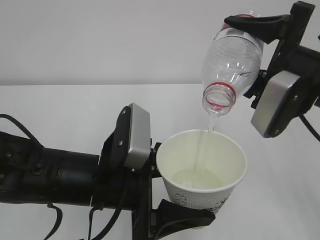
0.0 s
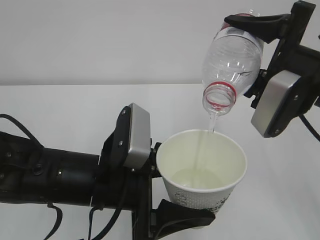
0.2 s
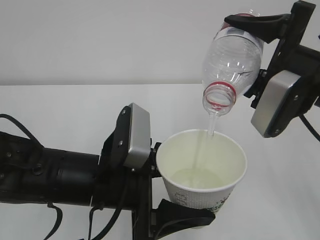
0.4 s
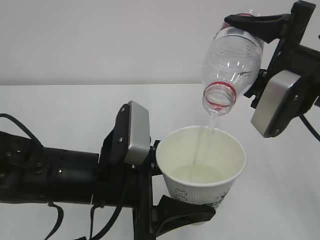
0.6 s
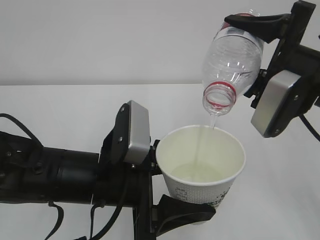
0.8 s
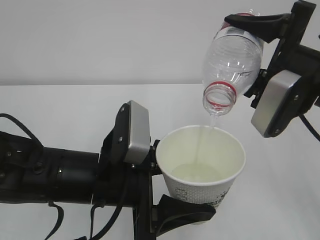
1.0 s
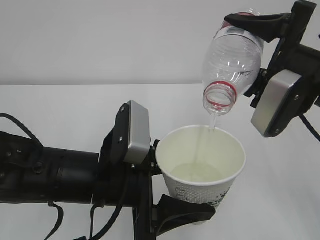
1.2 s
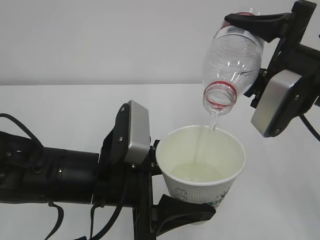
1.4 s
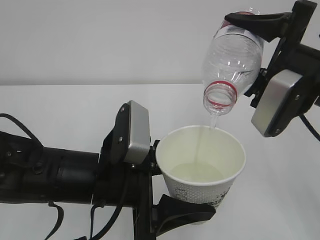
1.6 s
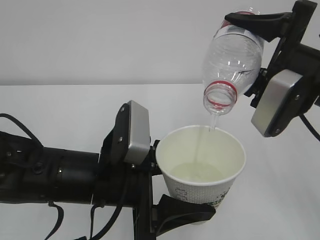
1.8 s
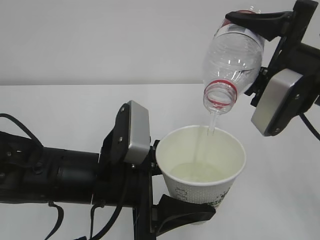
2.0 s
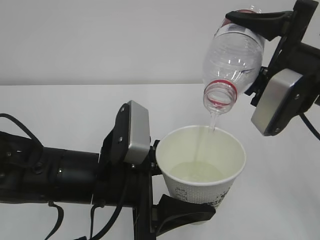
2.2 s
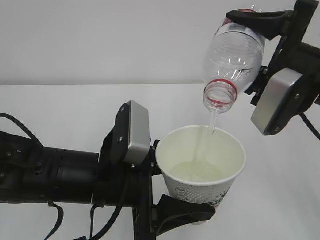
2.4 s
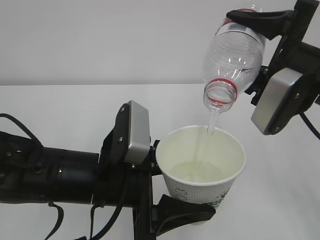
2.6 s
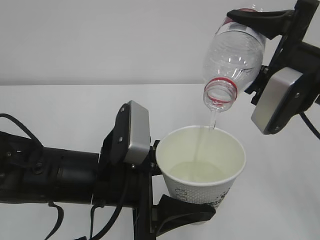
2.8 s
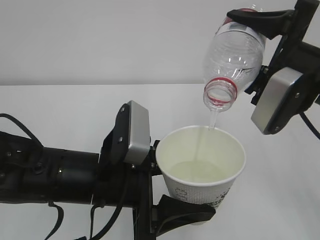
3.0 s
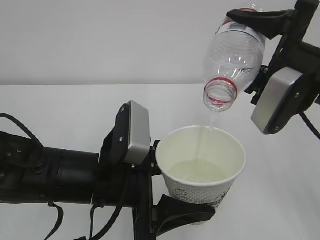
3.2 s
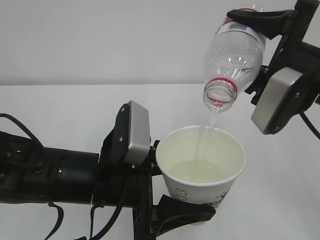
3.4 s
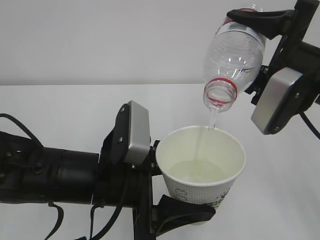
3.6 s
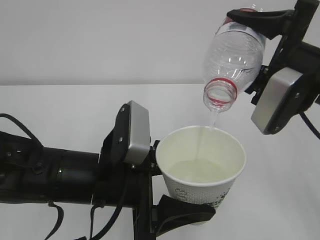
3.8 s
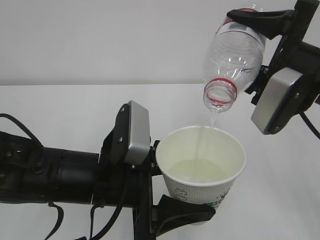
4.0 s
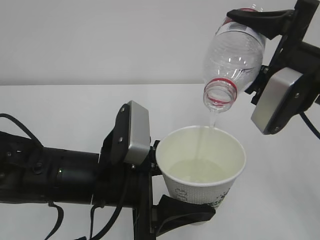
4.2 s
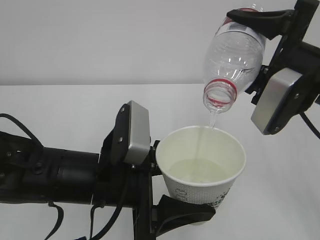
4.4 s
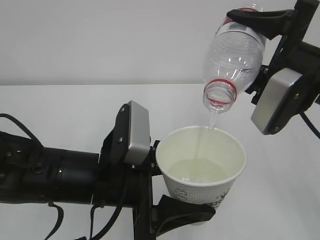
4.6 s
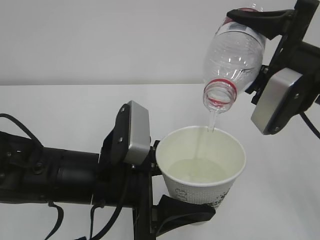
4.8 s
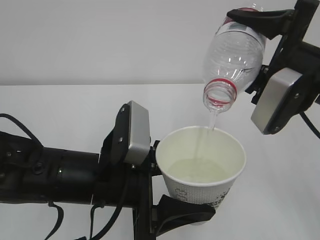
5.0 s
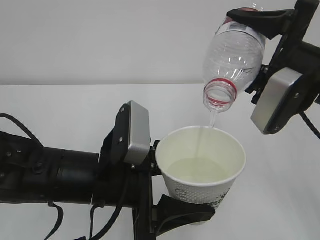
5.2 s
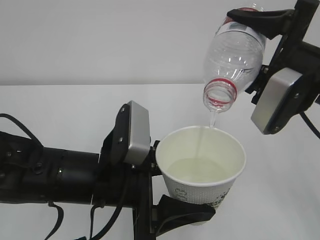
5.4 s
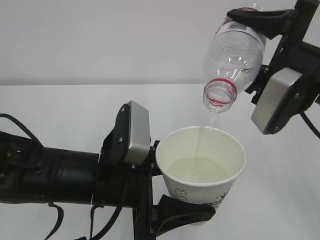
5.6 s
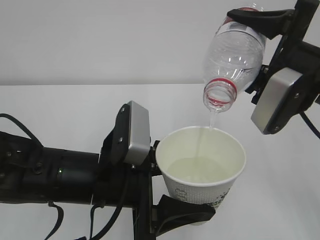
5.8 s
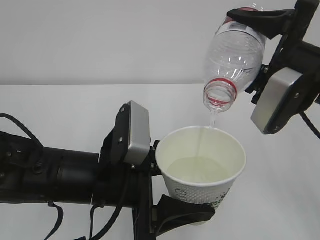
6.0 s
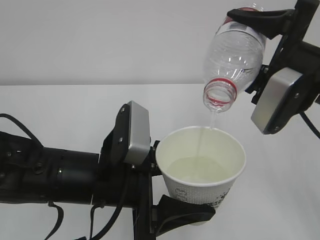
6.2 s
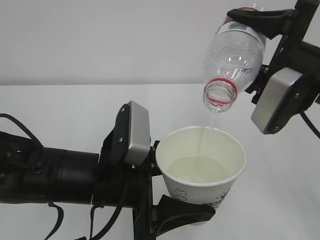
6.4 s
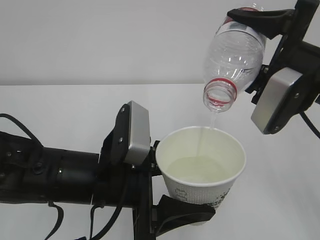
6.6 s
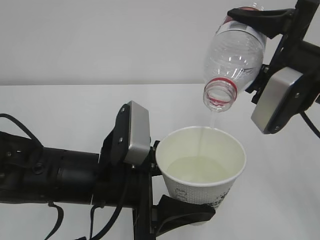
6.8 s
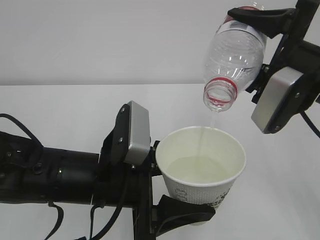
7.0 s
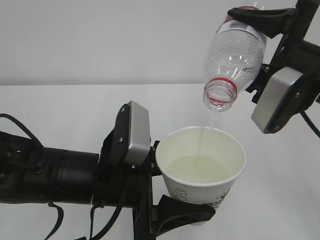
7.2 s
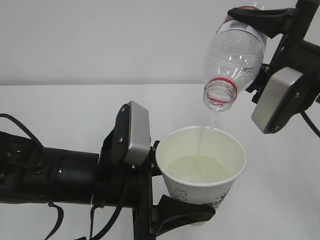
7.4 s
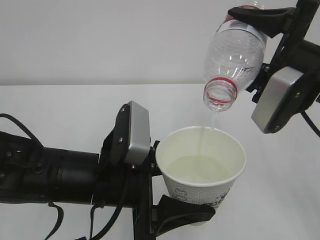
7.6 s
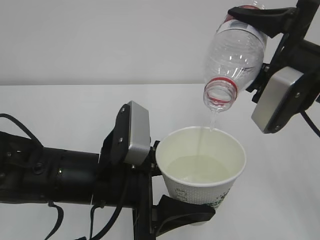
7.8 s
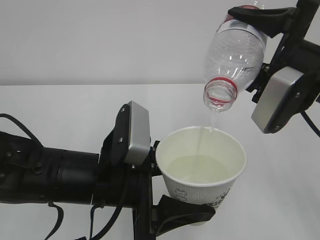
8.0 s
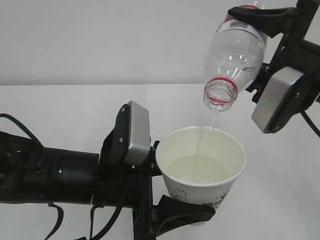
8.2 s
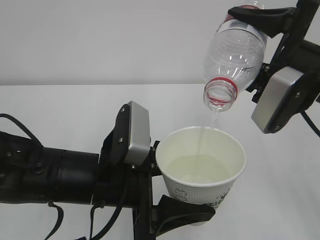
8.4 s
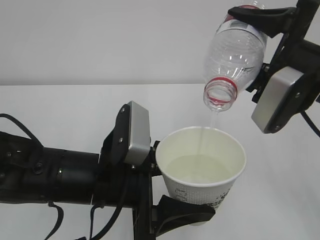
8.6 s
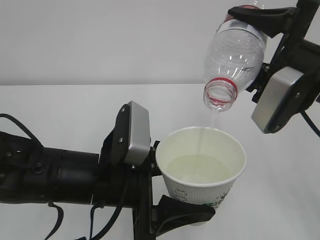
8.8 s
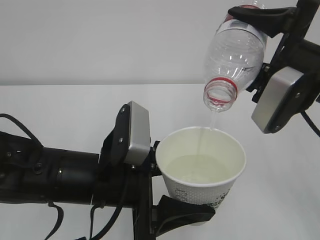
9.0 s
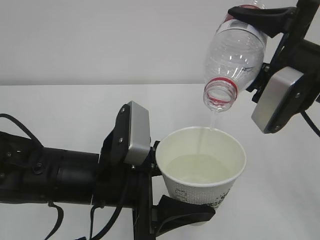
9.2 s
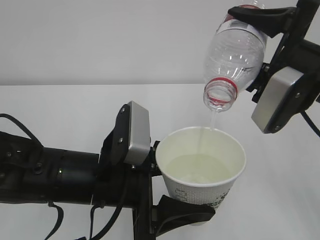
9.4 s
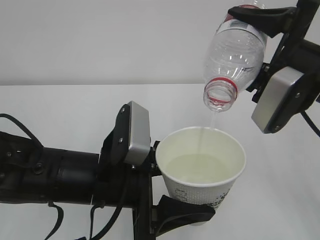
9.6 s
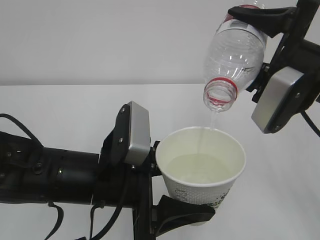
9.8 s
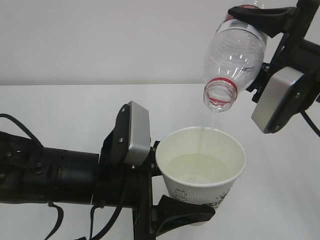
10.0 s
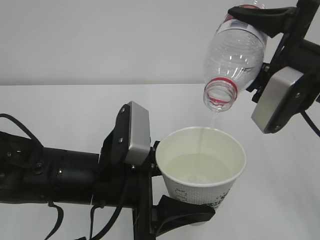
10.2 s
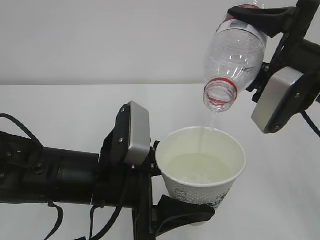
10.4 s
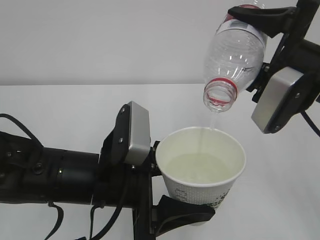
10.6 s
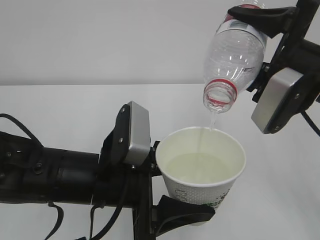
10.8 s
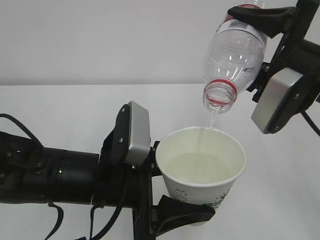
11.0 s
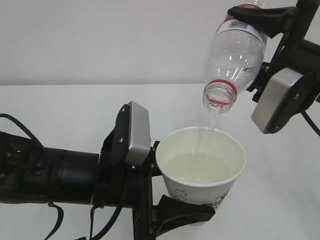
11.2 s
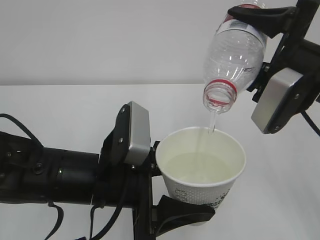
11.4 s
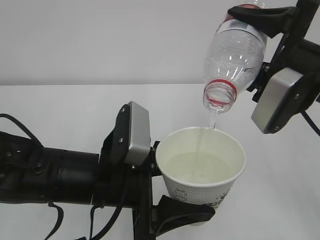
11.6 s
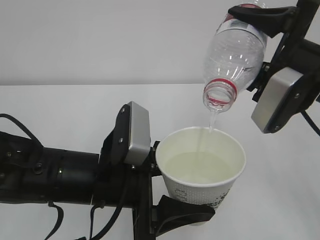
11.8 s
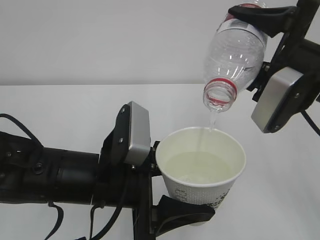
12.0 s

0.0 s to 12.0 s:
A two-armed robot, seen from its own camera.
0.0 to 12.0 s: Neither gripper changes place.

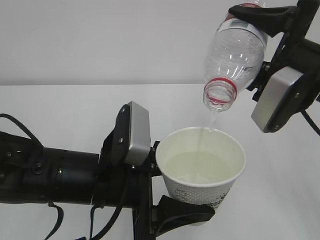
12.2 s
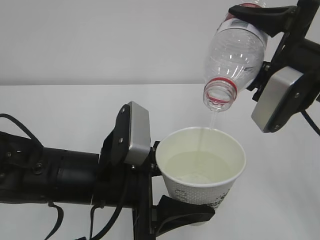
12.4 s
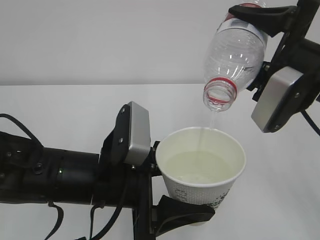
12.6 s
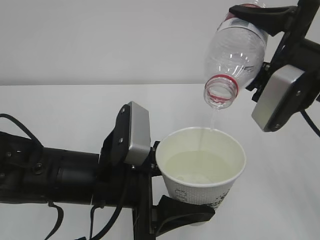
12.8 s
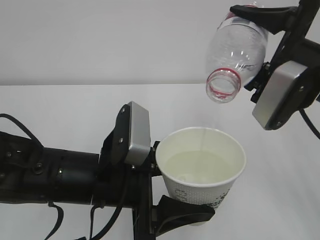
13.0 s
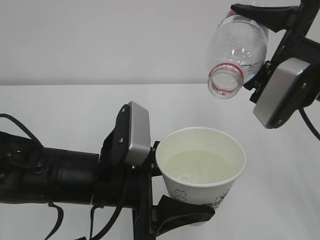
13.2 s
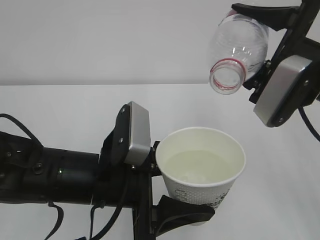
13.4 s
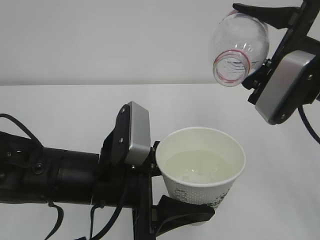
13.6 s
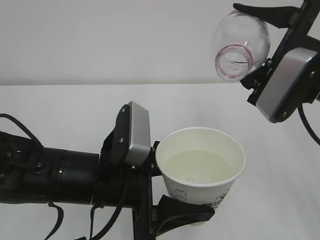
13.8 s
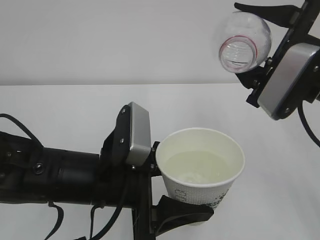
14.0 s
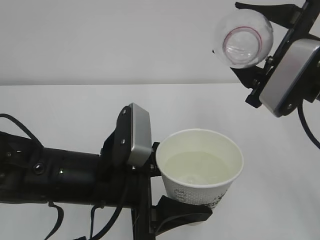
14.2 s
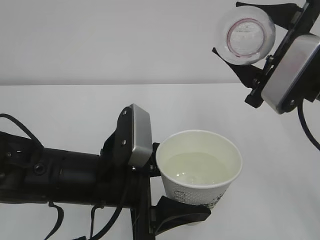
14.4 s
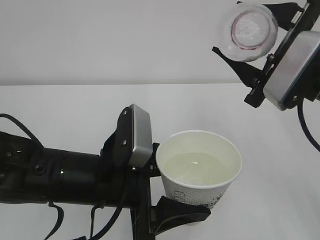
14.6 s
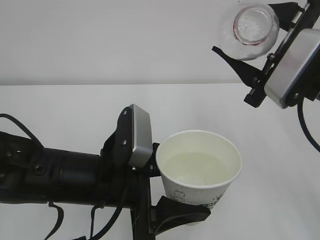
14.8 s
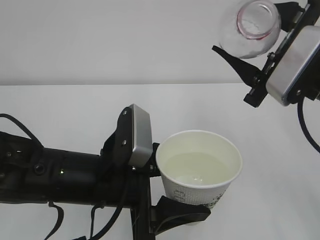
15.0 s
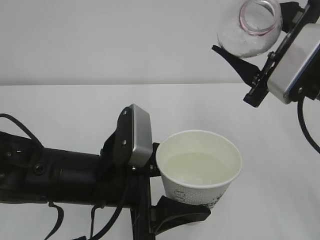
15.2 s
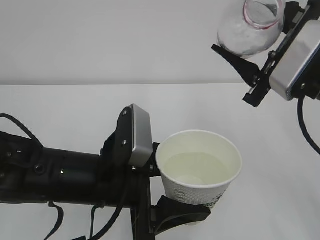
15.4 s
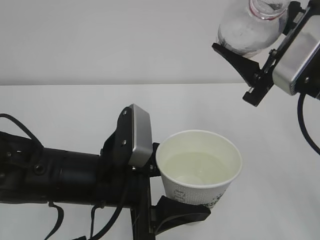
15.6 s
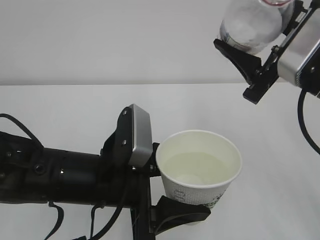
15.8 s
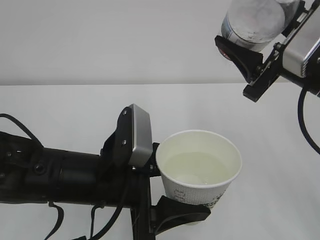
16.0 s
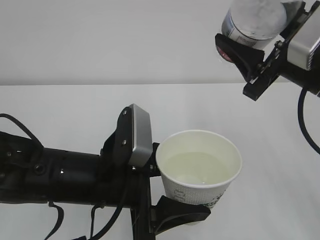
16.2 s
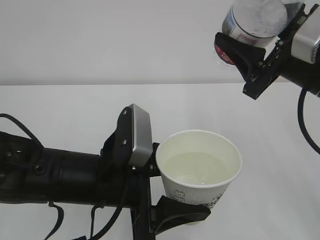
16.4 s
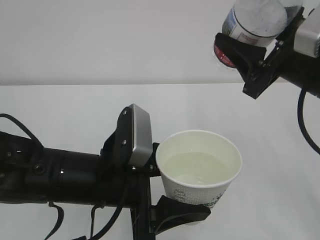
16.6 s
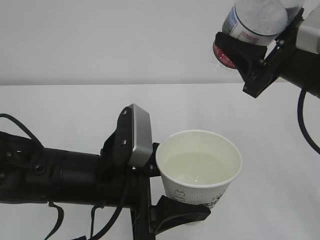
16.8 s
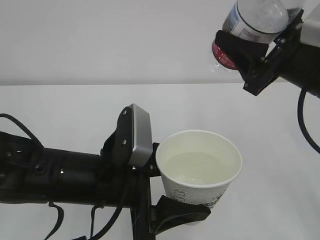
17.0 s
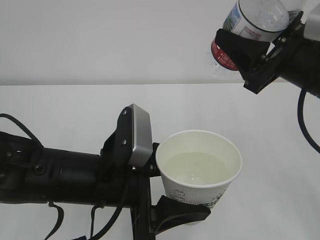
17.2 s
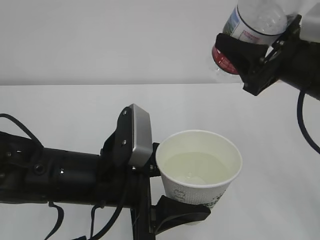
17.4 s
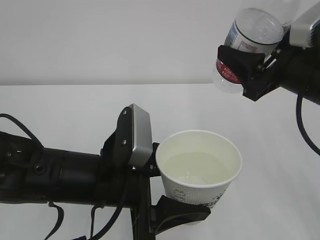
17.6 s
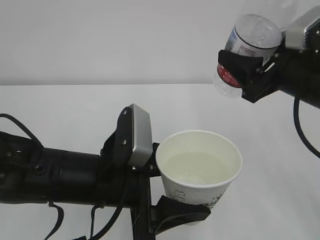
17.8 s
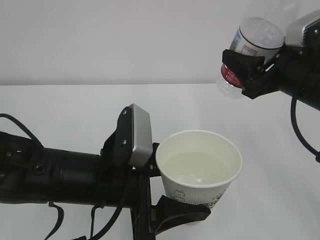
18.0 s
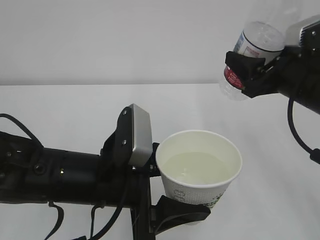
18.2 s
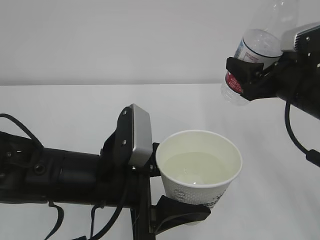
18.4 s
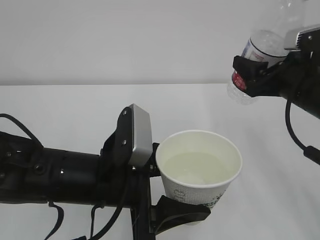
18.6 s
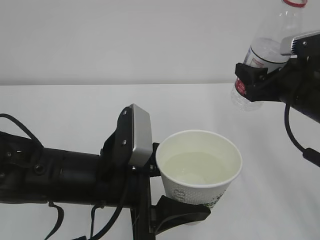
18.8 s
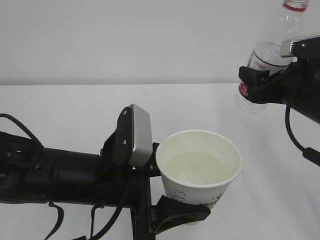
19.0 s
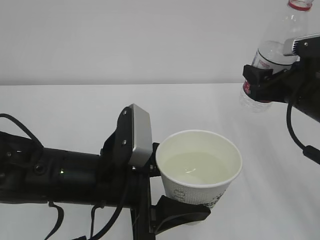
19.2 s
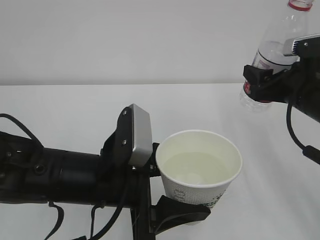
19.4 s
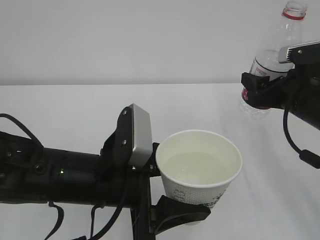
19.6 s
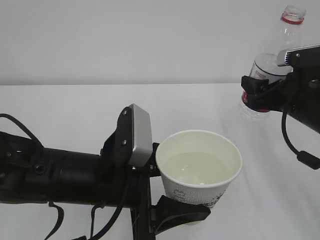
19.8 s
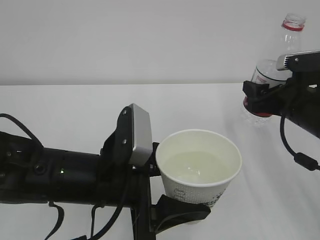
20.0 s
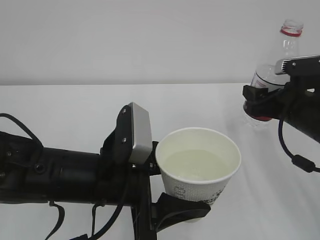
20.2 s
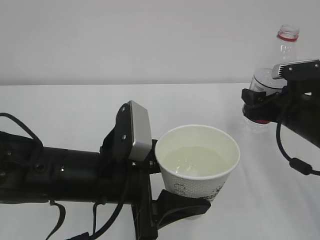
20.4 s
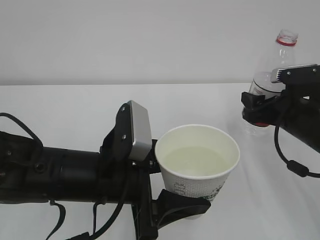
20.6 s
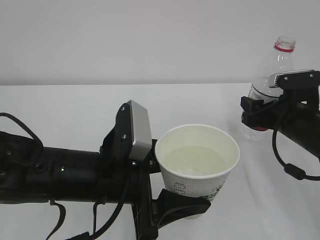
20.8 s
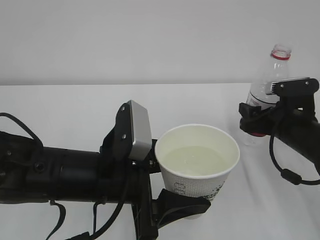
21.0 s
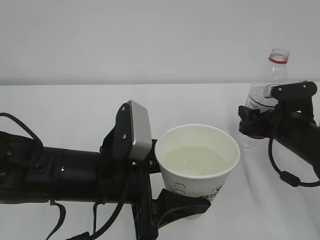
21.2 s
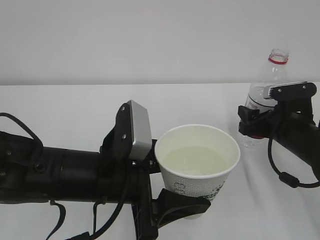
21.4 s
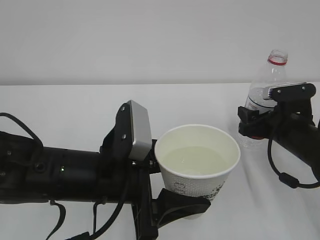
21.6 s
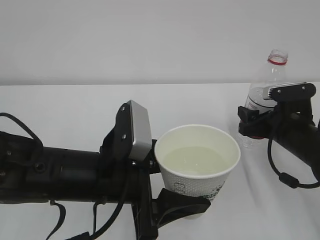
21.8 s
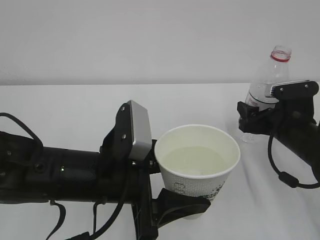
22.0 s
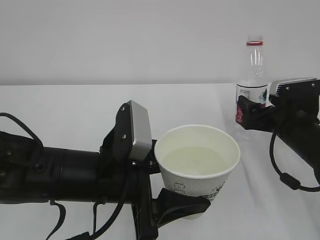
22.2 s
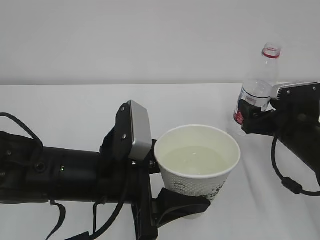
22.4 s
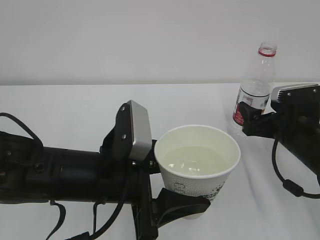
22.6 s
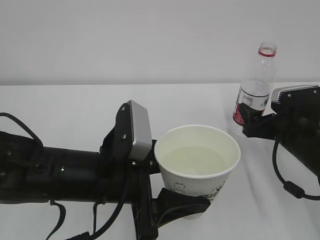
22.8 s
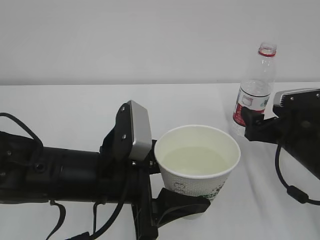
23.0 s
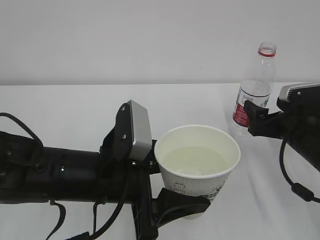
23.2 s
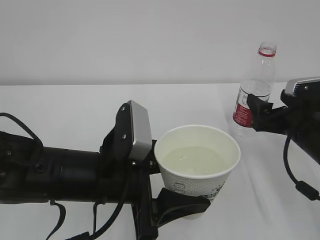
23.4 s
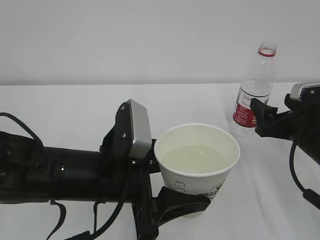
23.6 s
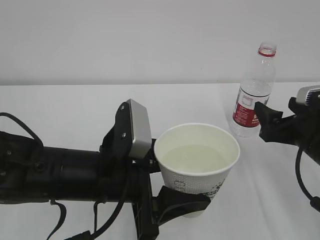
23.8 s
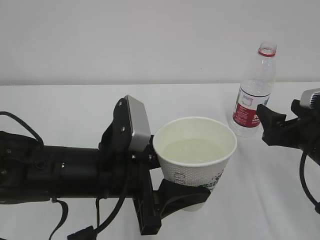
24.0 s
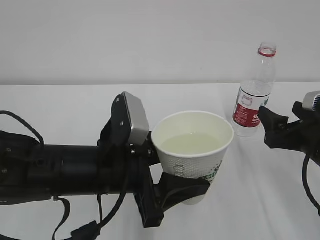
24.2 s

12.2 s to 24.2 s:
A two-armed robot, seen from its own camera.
12.2 to 13.8 s: The grippers move only a little.
13.8 to 15.2 s: There are only small adjustments of the grippers.
18.2 to 19.8 s: The right gripper is displaced downward by approximately 5 cm.
19.8 to 21.2 s: The right gripper shifts some 5 cm downward.
21.2 to 22.6 s: The right gripper opens its fingers.
22.6 to 24.2 s: The right gripper travels backward by some 5 cm.
